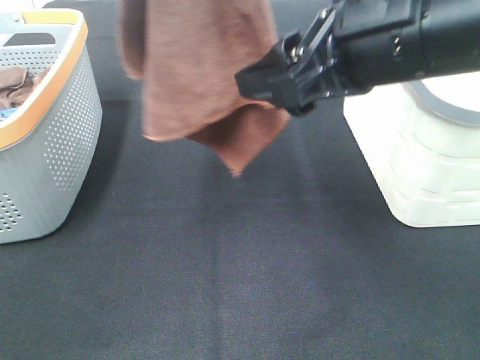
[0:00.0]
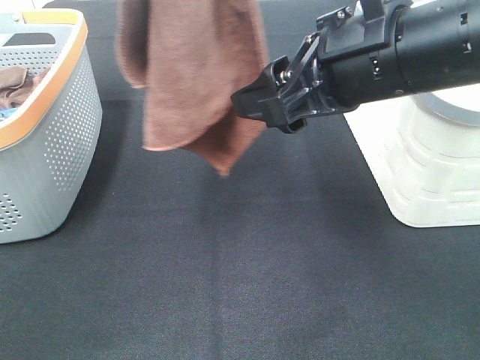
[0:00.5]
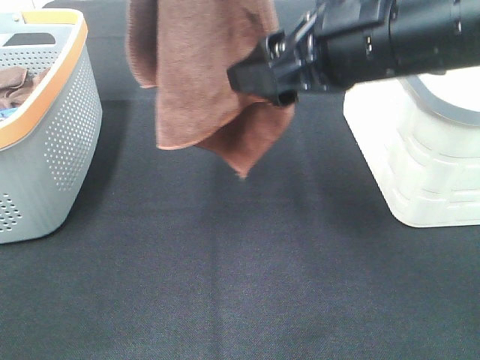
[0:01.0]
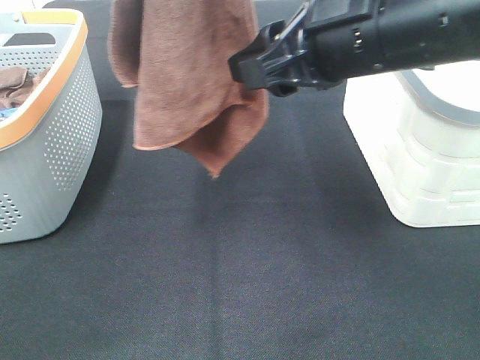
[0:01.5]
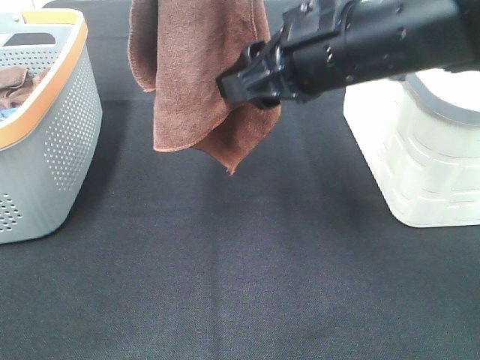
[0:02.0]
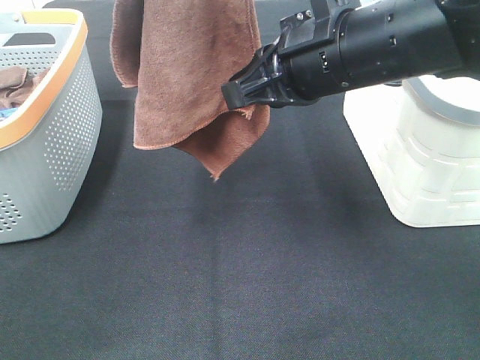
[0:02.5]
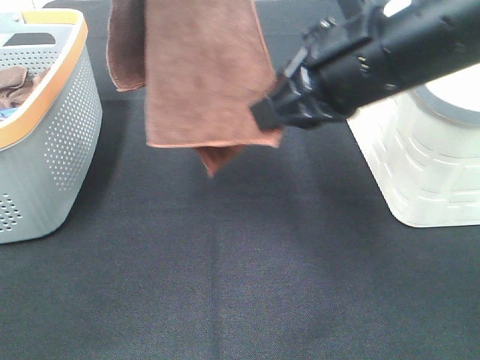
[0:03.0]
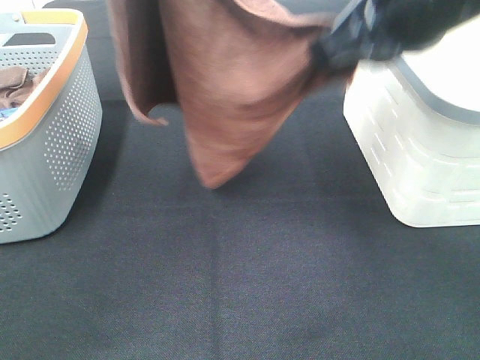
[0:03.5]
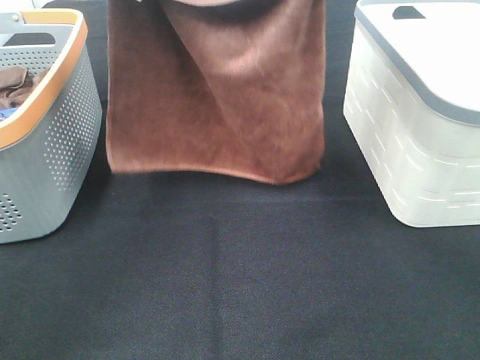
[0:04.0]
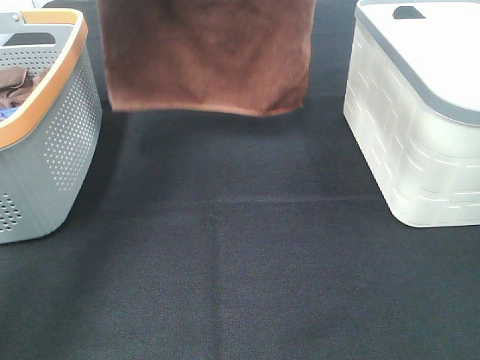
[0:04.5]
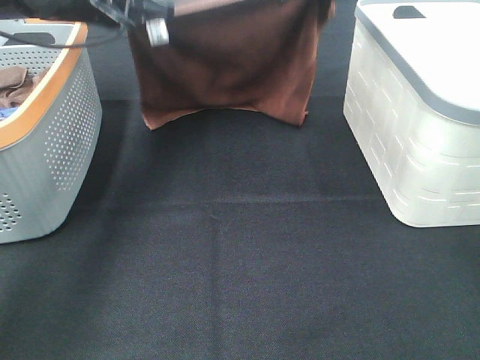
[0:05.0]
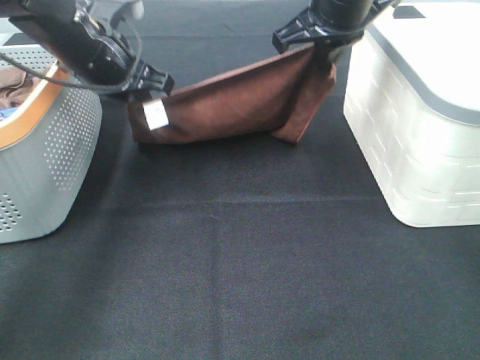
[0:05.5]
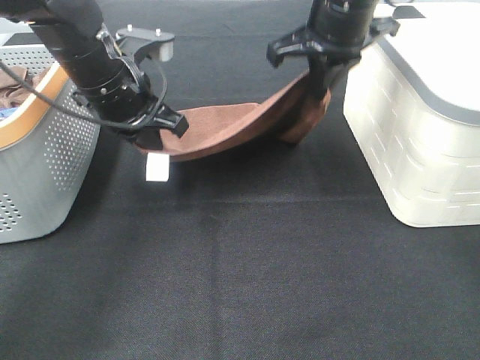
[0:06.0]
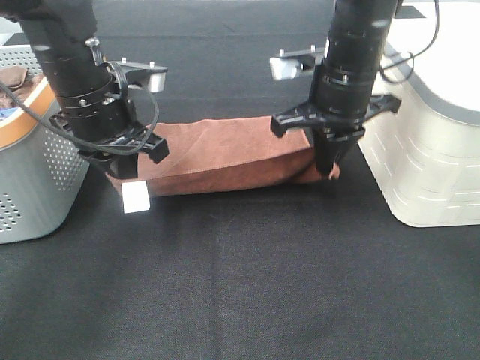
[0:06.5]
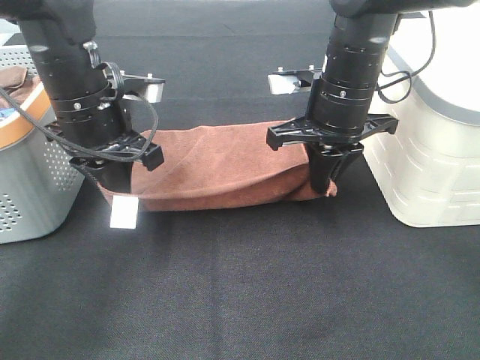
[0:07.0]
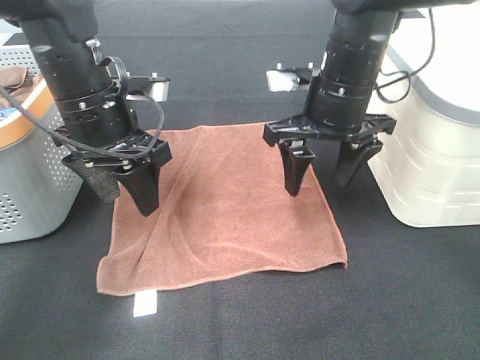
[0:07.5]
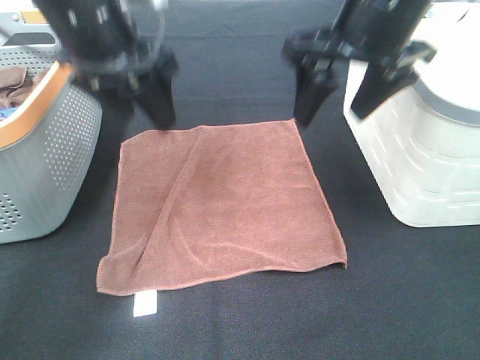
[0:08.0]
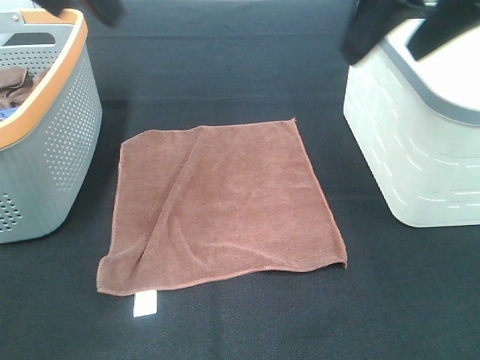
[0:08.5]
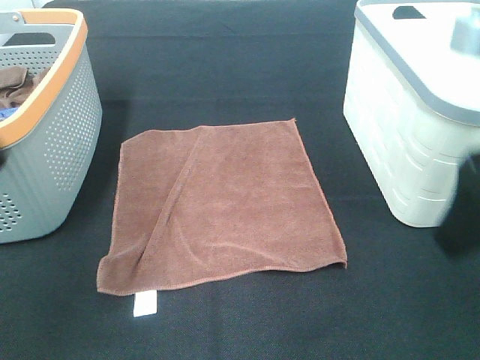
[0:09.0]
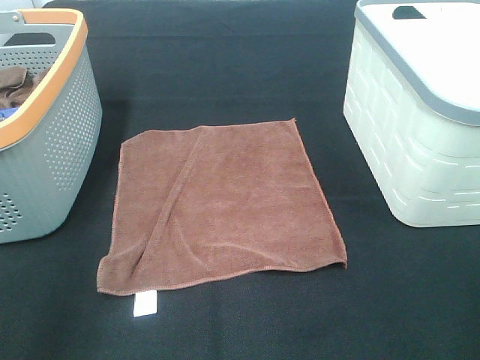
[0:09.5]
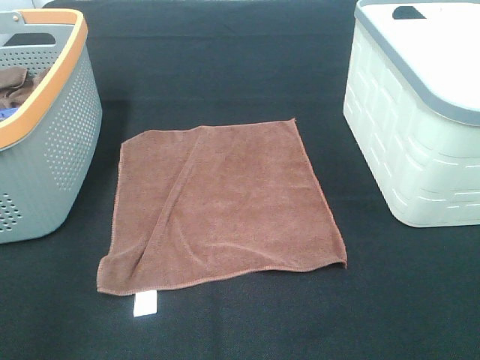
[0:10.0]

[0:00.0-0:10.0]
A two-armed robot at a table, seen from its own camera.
Task of the whole recording: Remove the towel and place it.
Step, 0:01.5 to 0:03.0: Left hand: spread the brown towel flat on the table.
Step, 0:01.5 to 0:03.0: Right hand: spread the brown towel flat on the table.
0:00.0 to 0:02.0: The right gripper moves some 5 cm.
0:02.0 to 0:04.0: The left gripper moves downward and forward, approximately 15 cm; the right gripper travels upward and forward by approximately 10 cm, and closes up.
0:04.0 to 0:06.0: The left gripper travels downward by approximately 15 cm; the right gripper travels downward and forward by some 15 cm.
0:06.0 to 0:08.0: The left gripper moves upward, some 10 cm, and opens. The right gripper heads backward, covering approximately 10 cm, and opens its fingers.
0:08.0 to 0:10.0: The left gripper shifts about 30 cm backward and to the left; the right gripper moves backward and to the right, about 30 cm.

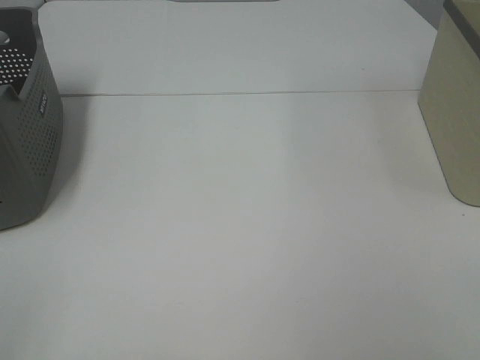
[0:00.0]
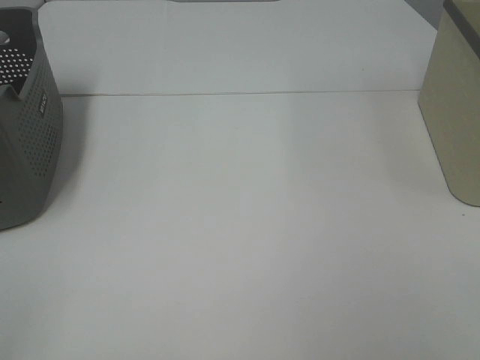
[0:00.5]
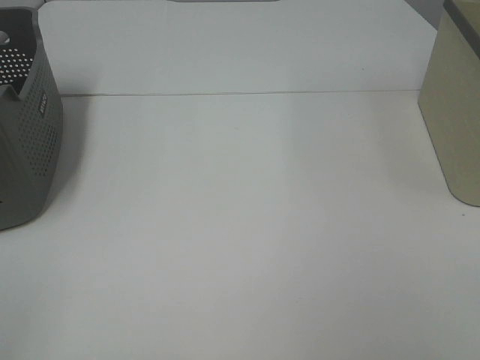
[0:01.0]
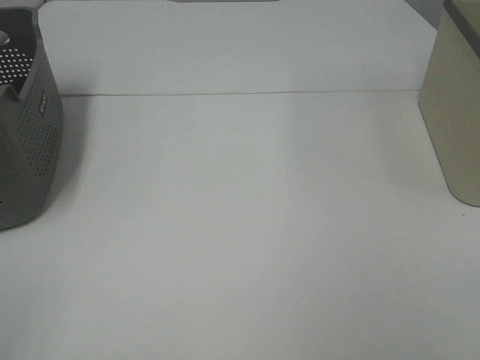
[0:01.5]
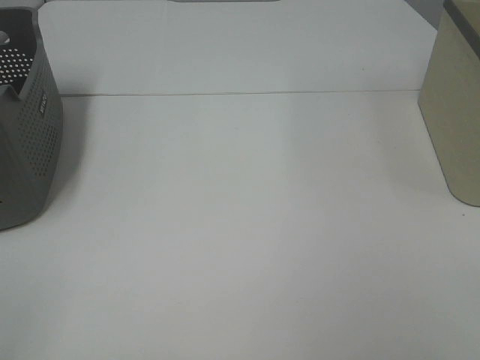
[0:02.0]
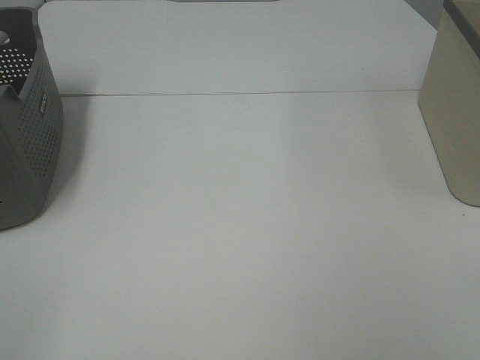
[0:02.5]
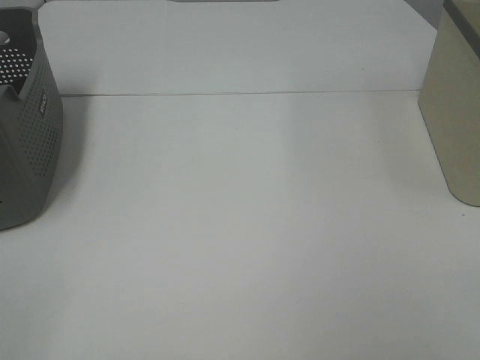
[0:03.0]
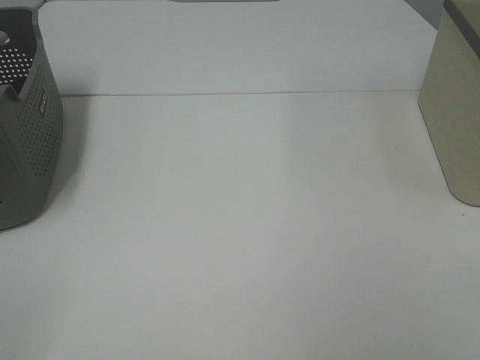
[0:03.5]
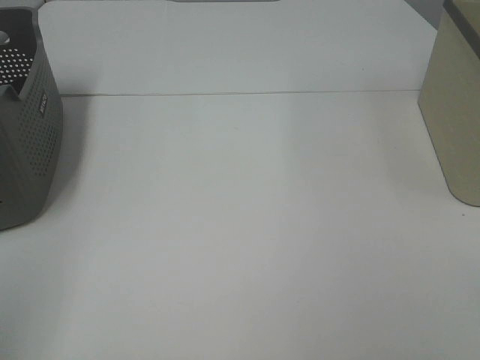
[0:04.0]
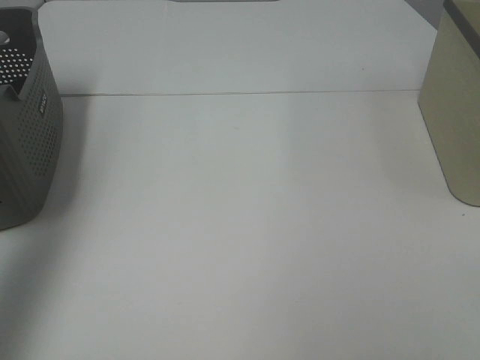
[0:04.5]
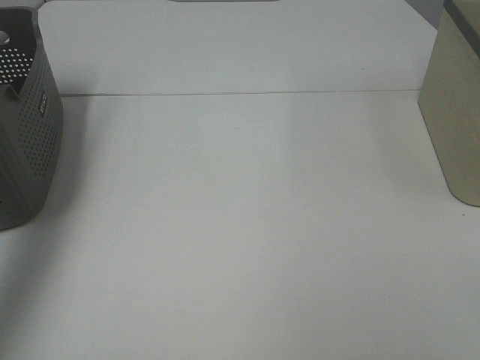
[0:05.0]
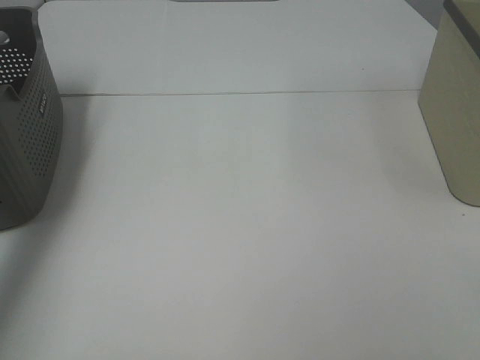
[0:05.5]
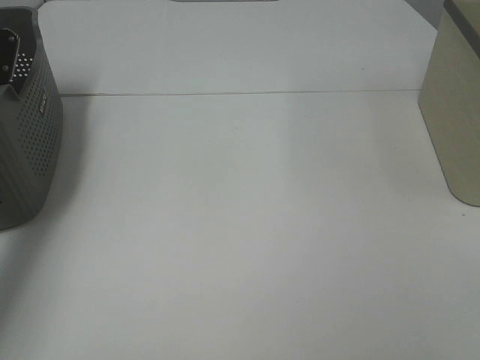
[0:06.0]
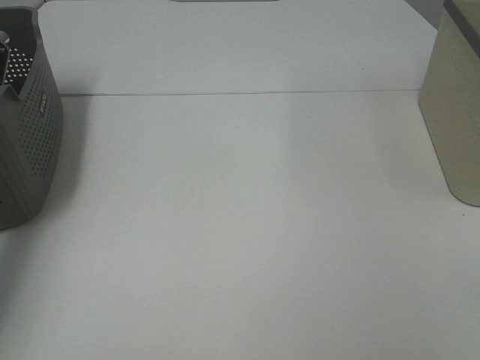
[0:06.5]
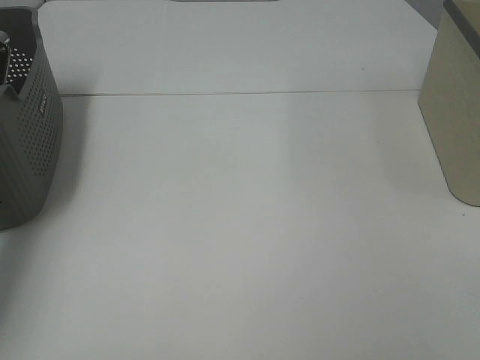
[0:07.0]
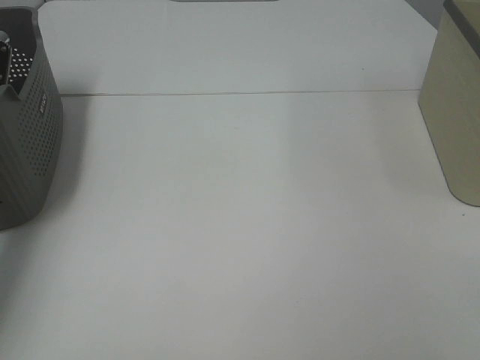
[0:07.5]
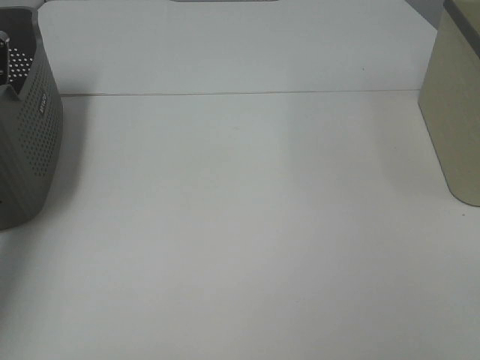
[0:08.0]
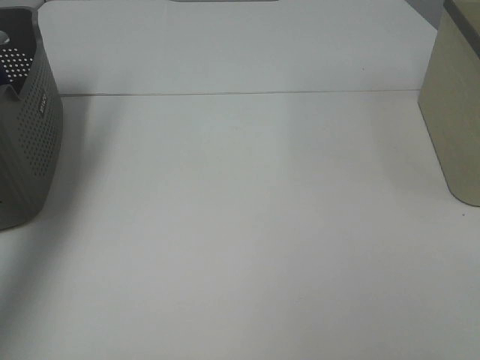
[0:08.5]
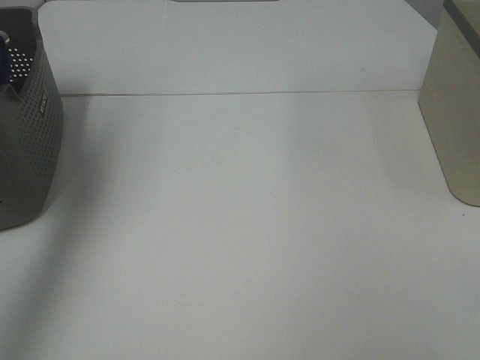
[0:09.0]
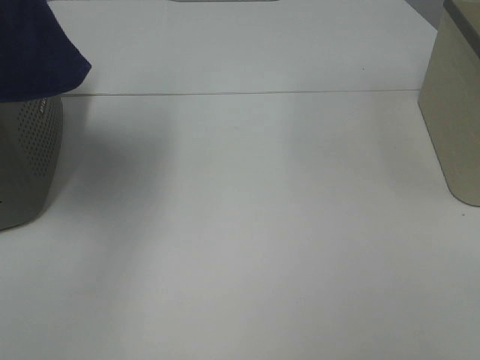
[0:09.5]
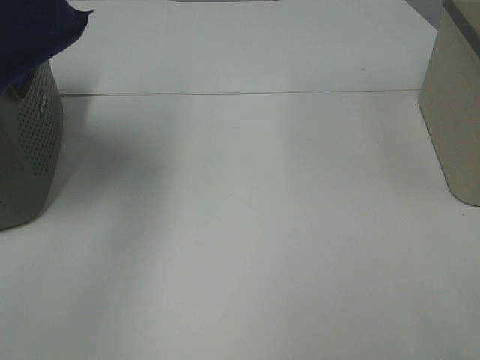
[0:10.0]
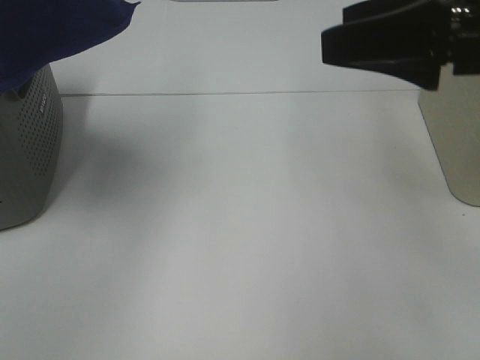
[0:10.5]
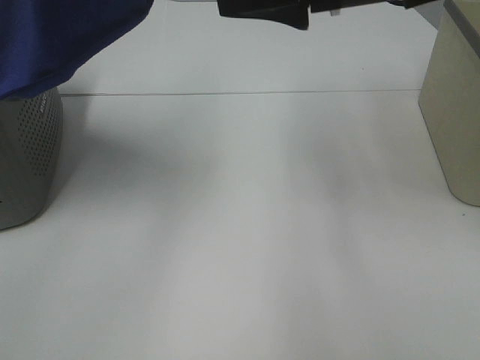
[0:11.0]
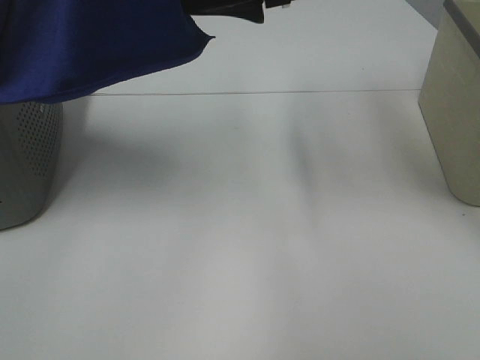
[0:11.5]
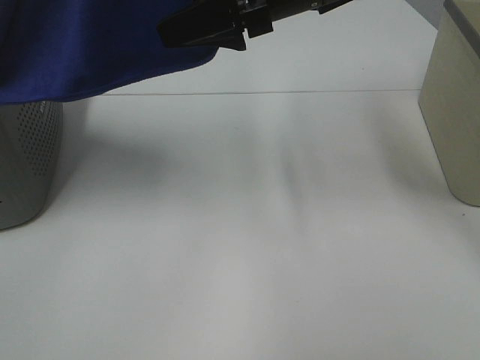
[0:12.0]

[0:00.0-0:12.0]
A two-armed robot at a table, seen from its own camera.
Task of the whole recording: Remove the towel and place it.
0:00.0 to 0:02.0: Neither gripper changes place.
0:04.0 to 0:06.0: The left gripper travels forward by some 40 cm.
0:08.0 to 0:10.0: The right gripper shifts some 5 cm forward; the left gripper is displaced upward, backward and to the right by approximately 40 cm.
0:10.0 to 0:12.0: The left gripper shifts some 10 cm to the right; the right gripper shifts about 35 cm forward and to the left.

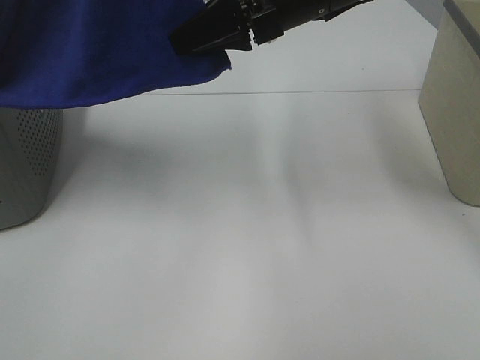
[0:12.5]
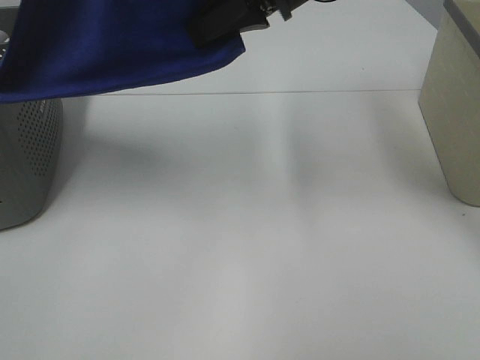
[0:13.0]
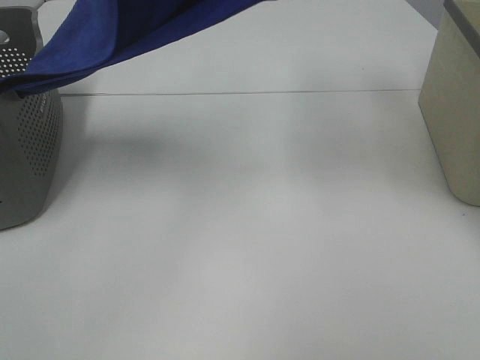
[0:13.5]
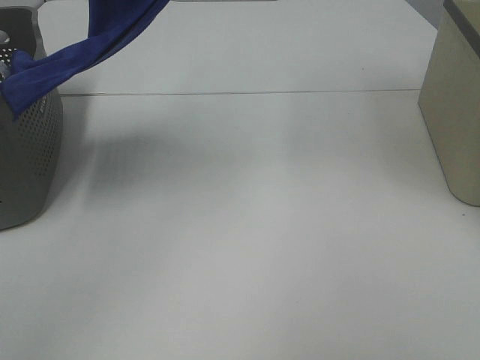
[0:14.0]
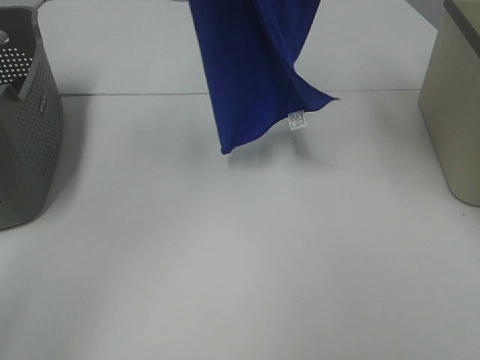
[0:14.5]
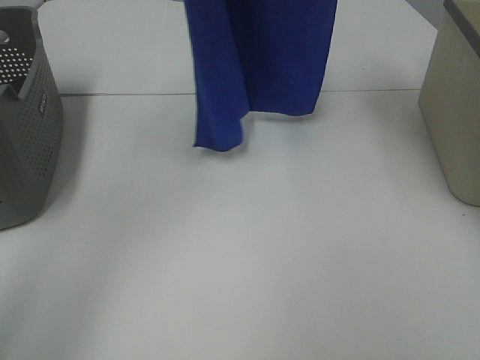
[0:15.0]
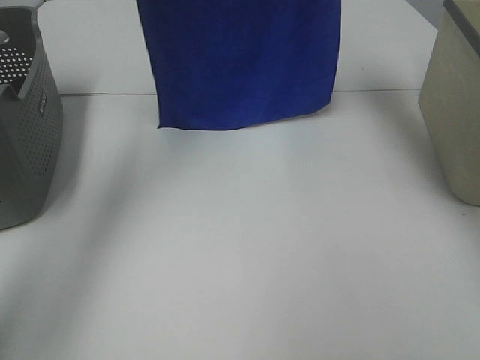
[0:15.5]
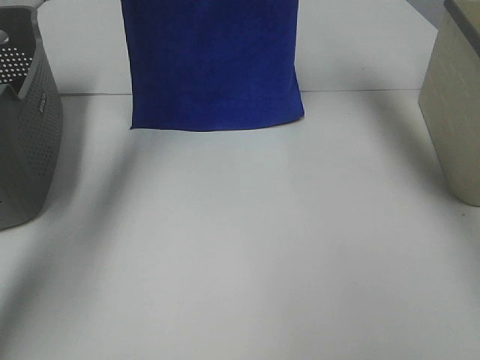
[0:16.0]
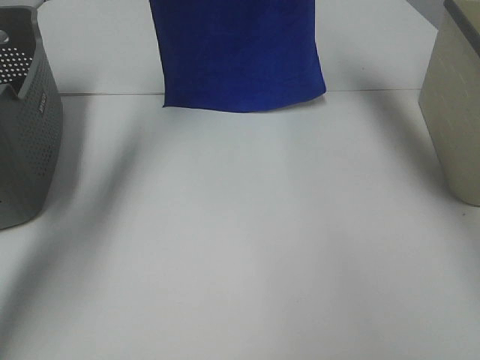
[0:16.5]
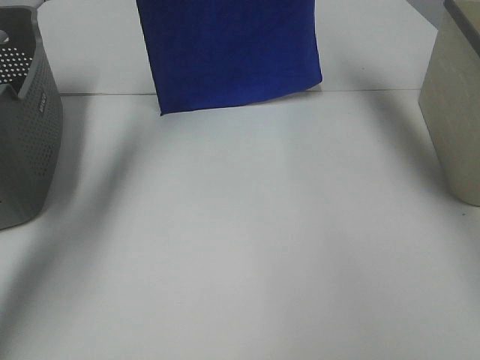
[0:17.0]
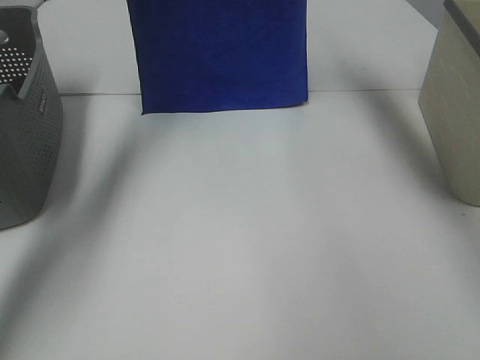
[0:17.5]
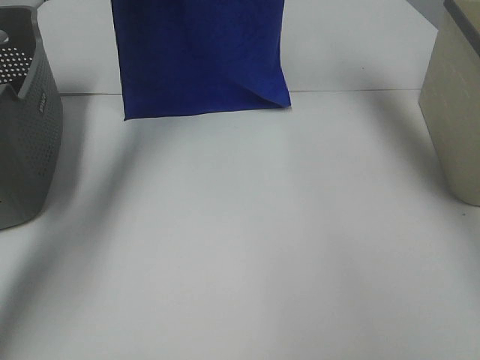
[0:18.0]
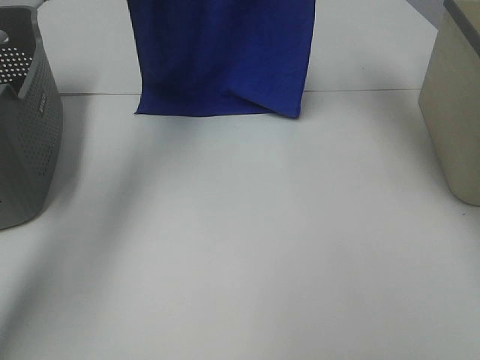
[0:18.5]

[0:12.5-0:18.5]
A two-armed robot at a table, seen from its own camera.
Task of the whole recording: Remove the towel and place it.
0:12.5 to 0:14.5: The left gripper shifts approximately 10 cm forward, while the right gripper heads upward, covering some 25 cm.
0:14.5 to 0:16.5: The grippers both shift forward and downward by approximately 15 cm.
